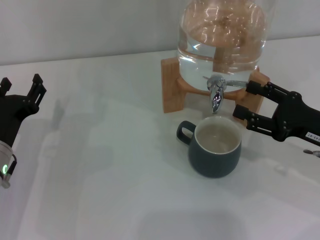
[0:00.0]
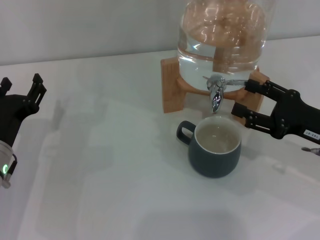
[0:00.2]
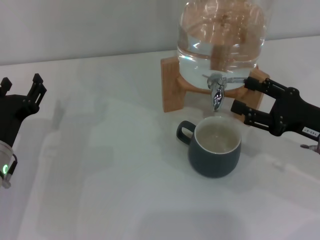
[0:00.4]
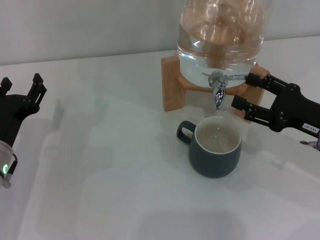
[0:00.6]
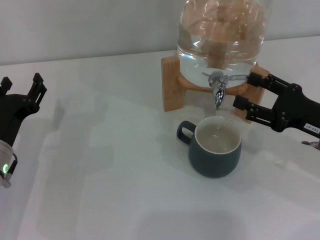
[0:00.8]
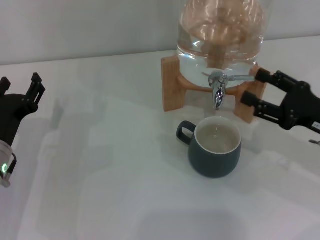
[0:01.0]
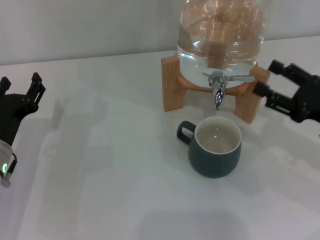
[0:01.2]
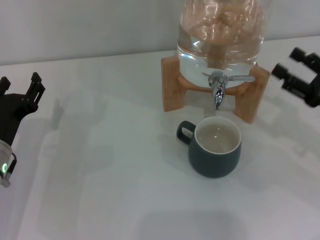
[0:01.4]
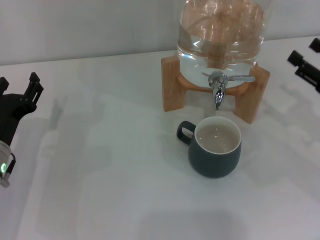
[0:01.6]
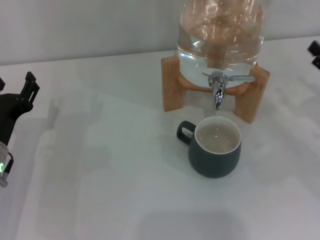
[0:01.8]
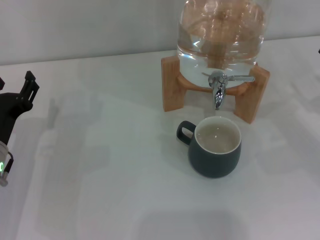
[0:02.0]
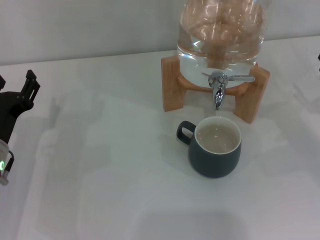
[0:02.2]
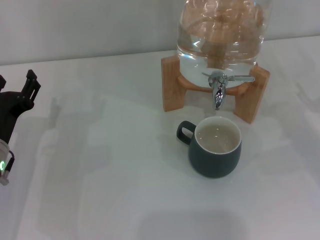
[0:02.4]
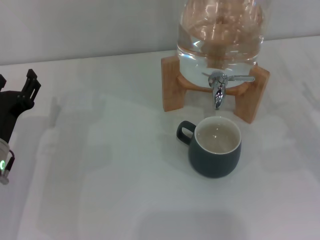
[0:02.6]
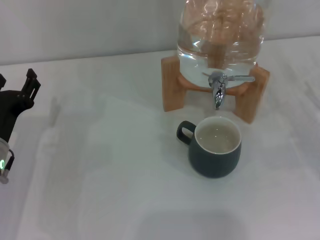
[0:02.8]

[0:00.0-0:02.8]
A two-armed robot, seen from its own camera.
Task of the whole recording: the left gripper pick up the black cup and place it horizontally under the faucet, the right gripper turn on the faucet to fill the cup, and then turn off the faucet.
0:00.0 to 0:01.4: There are only small adjustments of the grippers.
0:01.4 to 0:02.8: The right gripper ends up about 5 cm from where it was.

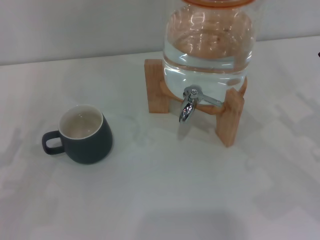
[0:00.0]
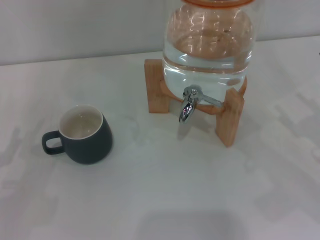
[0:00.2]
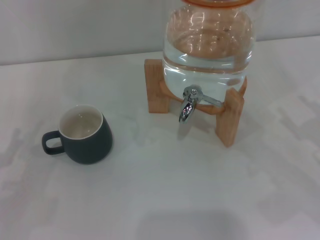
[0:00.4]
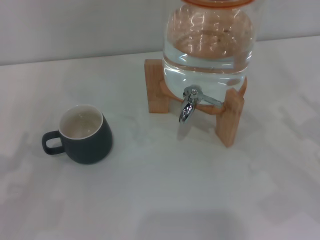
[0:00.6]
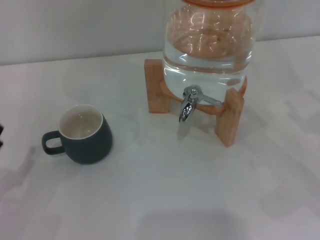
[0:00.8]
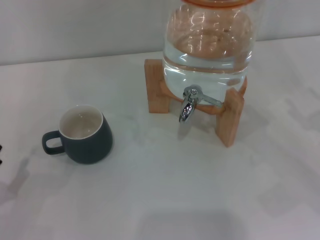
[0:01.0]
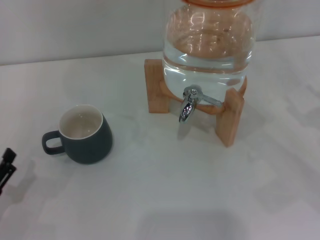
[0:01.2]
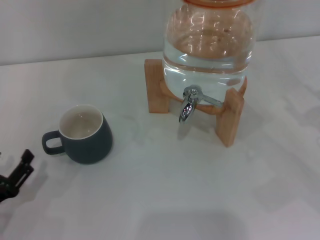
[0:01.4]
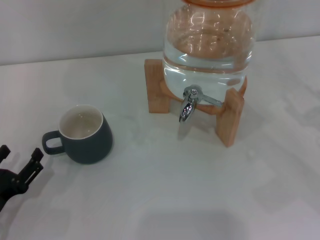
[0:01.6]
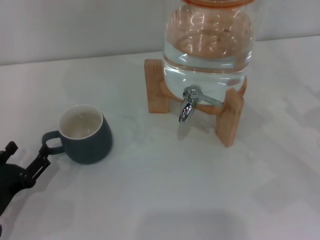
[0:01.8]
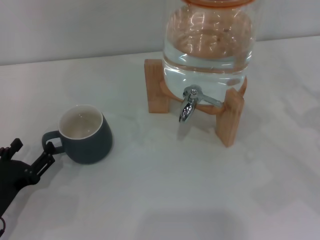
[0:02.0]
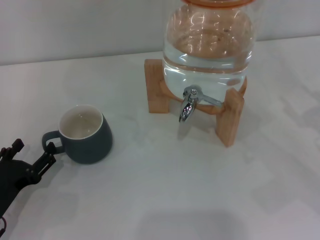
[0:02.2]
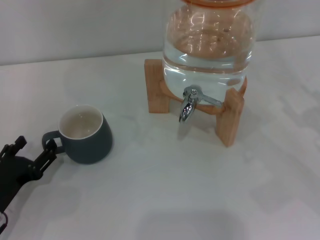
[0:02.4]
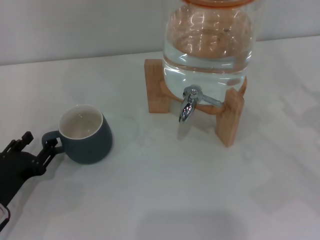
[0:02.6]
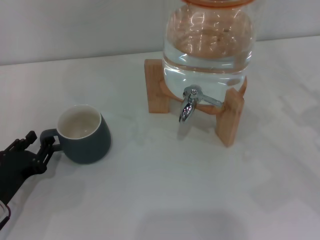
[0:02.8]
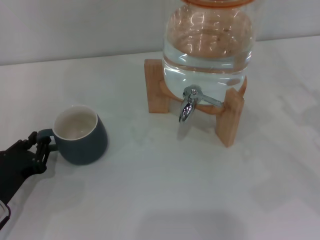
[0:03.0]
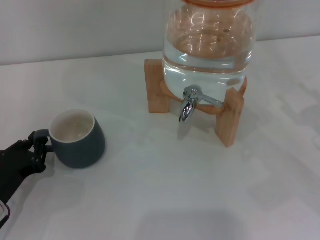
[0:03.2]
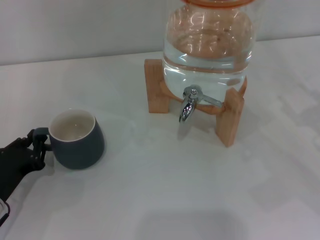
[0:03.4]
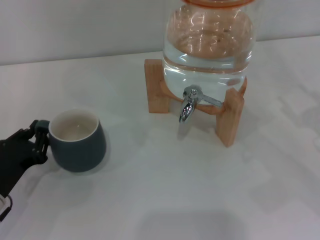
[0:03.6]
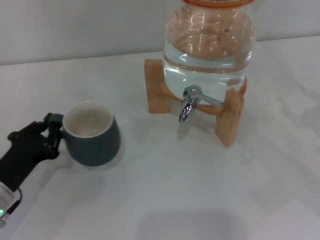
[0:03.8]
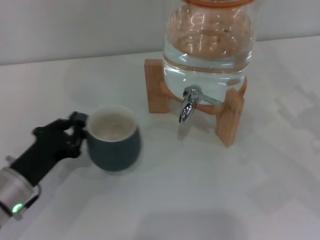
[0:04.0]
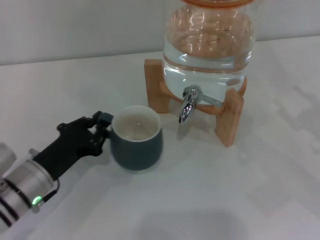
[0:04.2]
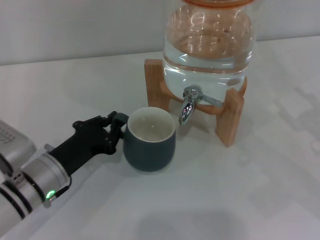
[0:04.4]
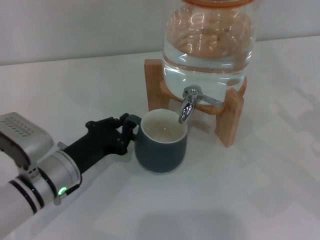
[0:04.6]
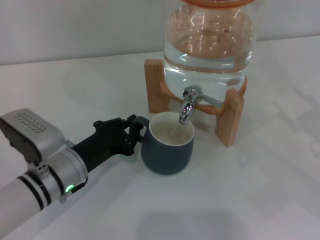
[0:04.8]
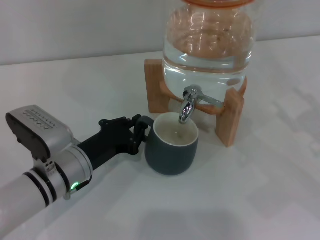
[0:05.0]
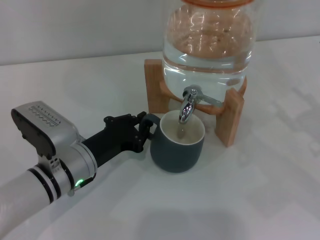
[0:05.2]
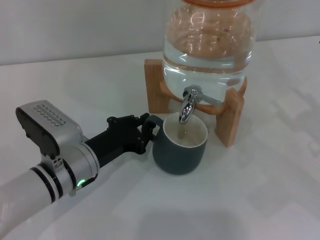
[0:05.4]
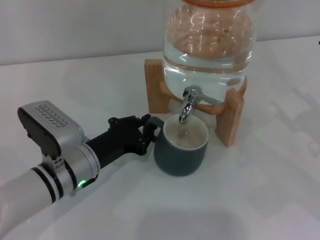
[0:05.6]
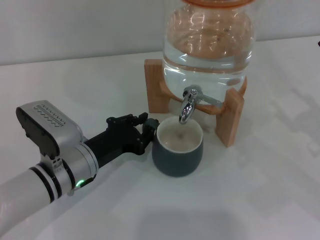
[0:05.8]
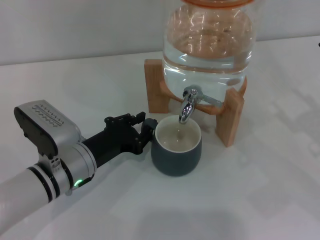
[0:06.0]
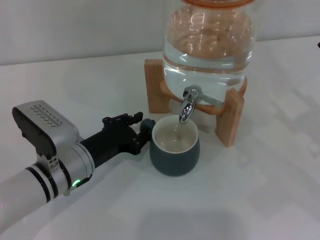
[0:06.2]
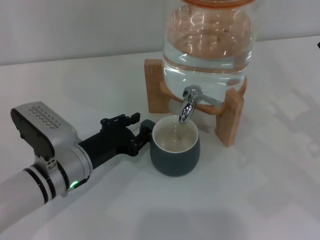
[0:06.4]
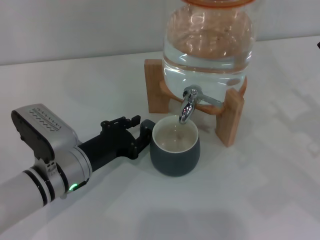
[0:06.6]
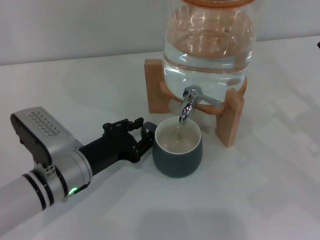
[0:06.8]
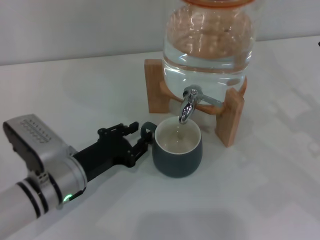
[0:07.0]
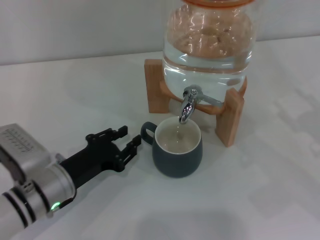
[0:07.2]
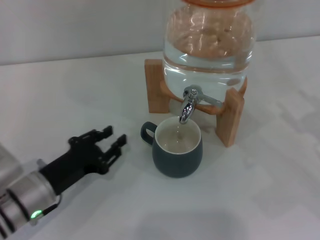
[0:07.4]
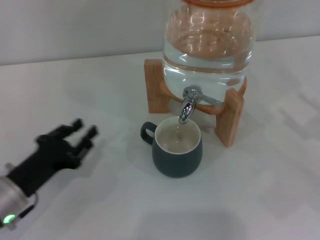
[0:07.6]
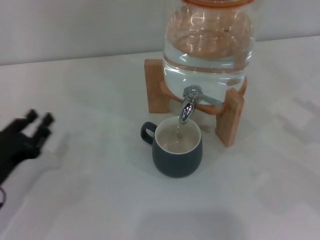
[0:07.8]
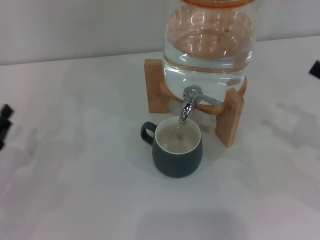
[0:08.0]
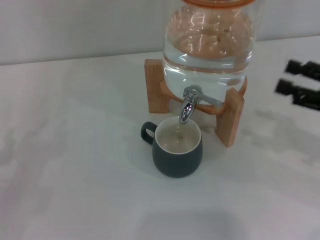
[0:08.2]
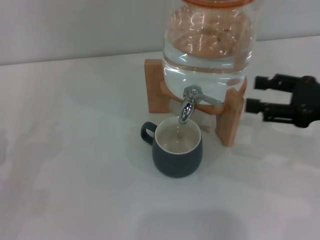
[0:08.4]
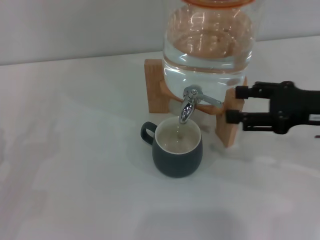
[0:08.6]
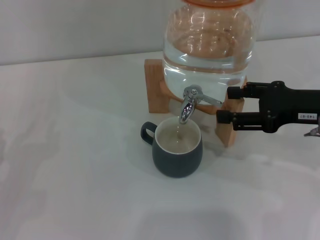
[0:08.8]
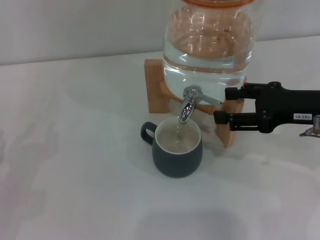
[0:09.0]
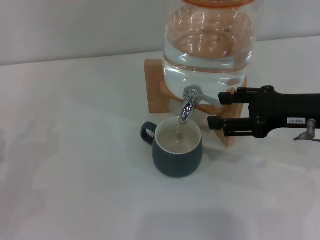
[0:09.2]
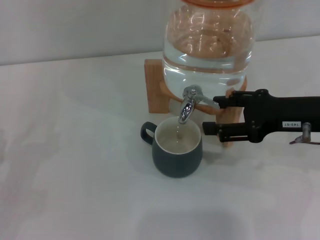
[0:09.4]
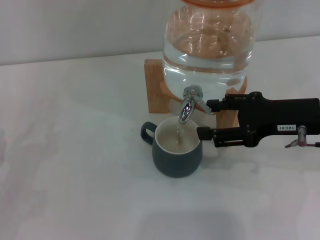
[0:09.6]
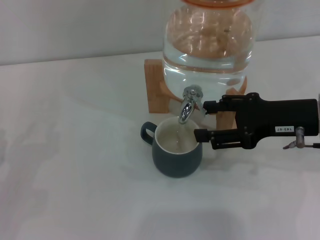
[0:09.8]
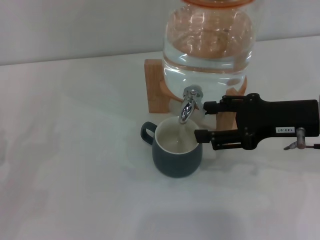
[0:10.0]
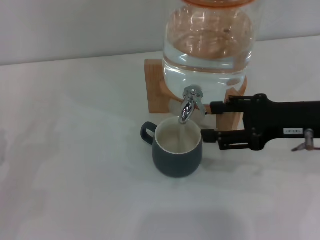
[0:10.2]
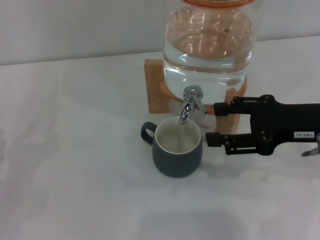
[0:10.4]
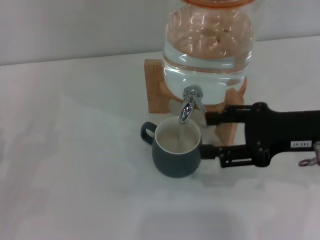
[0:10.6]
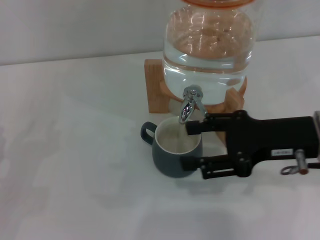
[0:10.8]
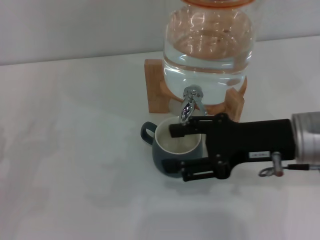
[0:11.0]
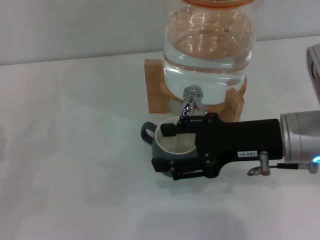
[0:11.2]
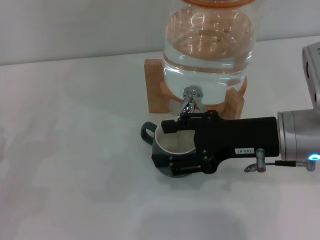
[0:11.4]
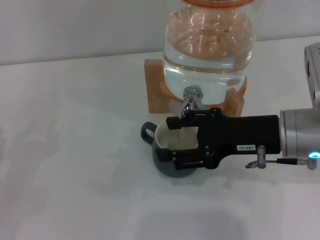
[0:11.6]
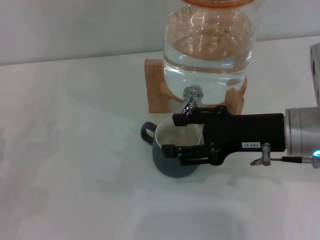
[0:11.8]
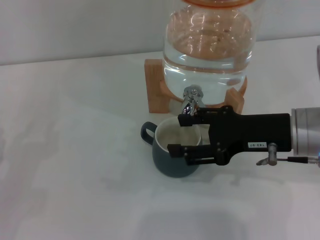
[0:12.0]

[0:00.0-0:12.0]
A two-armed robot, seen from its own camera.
Task of the whole recording: the left gripper pick up the black cup and place it horizontally under the faucet, the right gripper turn on the faucet to fill the cup, and then turn off the faucet.
Step, 0:00.0 to 0:07.0: Move the cup beneath the water dispenser nozzle with the left gripper.
Step, 0:07.4 to 0:10.2: Open the dispenser valve and fill the cup with water with the right gripper.
0:00.0 to 0:01.6: The left gripper ends up approximately 5 cm from where it was.
0:01.6 to 0:03.0: The left gripper closes.
0:03.0 to 0:04.4: The left gripper heads to the right, covering roughly 10 cm.
0:04.4 to 0:06.0: The grippers move only a little.
0:06.0 to 0:07.6: The left gripper goes roughly 10 cm to the left.
0:07.6 to 0:09.0: The left gripper travels to the left by roughly 10 cm, while the right gripper moves to the left, upward and forward, roughly 15 cm.
0:09.0 to 0:10.4: The grippers make only small movements.
0:10.4 to 0:12.0: The right gripper ends up about 5 cm from where it was.

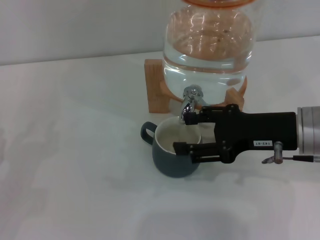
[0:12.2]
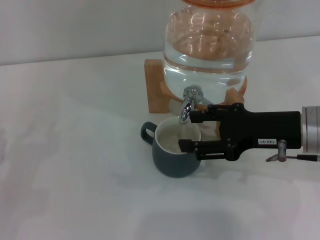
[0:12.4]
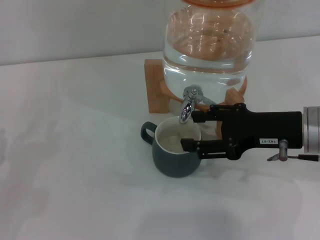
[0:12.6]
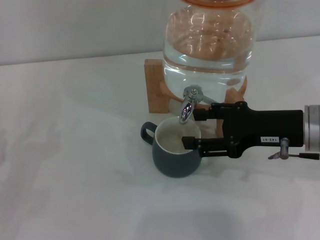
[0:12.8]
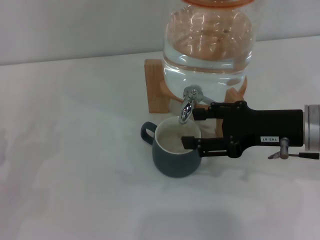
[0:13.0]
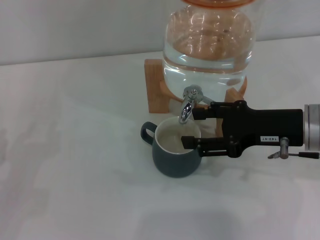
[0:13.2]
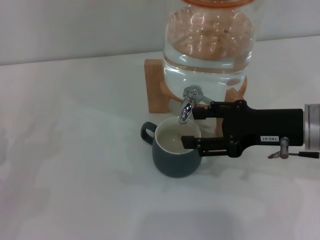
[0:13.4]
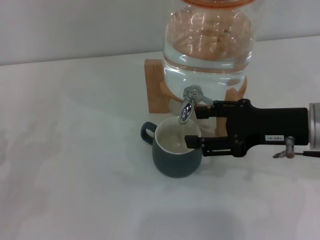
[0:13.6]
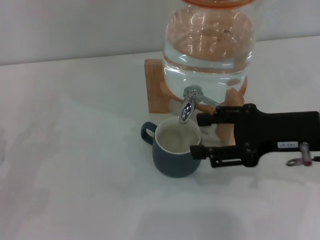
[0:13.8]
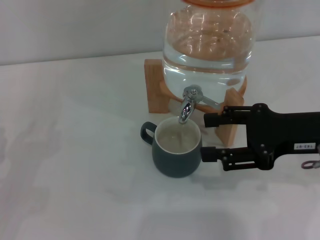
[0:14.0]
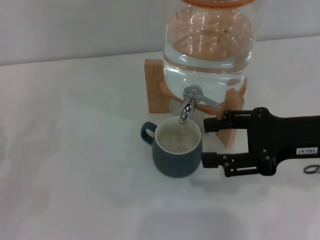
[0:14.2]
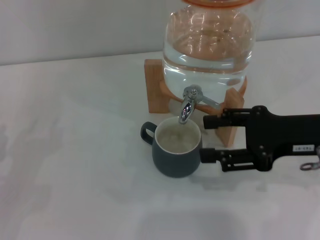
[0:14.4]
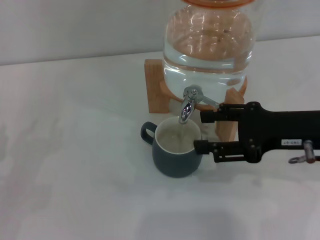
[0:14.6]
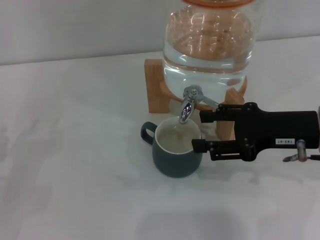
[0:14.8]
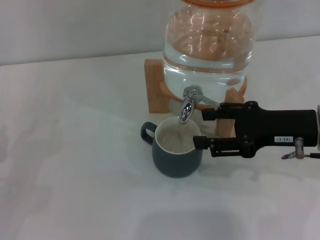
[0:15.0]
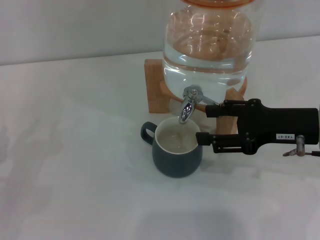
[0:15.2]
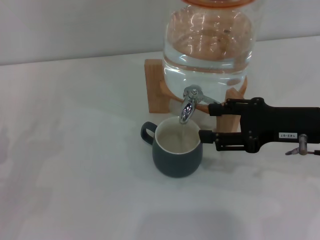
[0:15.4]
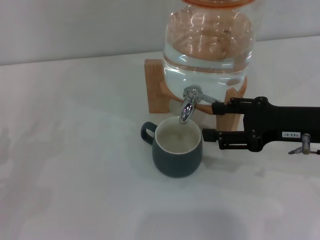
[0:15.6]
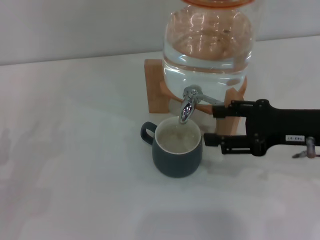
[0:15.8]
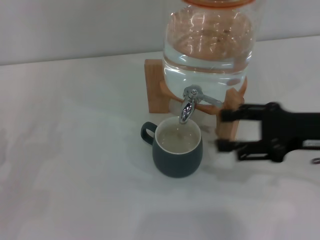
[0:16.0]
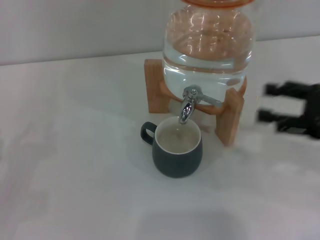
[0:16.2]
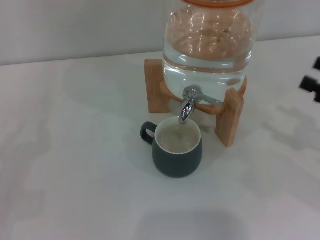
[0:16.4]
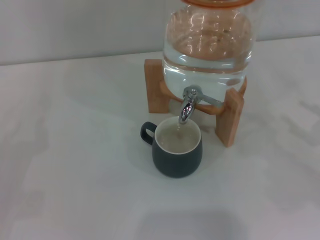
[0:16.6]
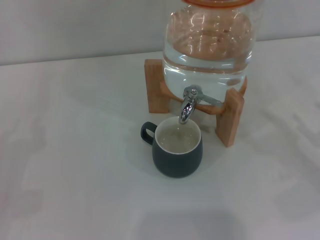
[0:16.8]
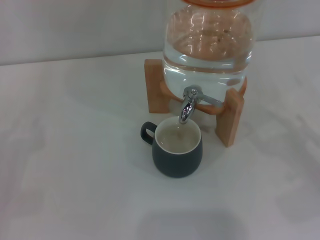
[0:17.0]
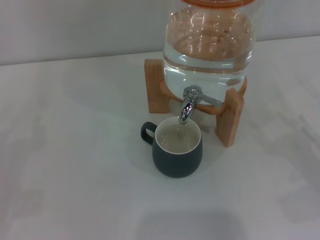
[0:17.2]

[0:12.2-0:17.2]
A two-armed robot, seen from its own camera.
Task of the whole recording: the left gripper pick up the black cup and place it horizontally under the faucet, the right gripper turn on the faucet to fill the cup, and then turn off the faucet.
Step, 0:12.2 to 0:15.8: Close the dispenser valve with the right gripper.
0:12.2 to 0:15.6: There are only small adjustments of the grippers.
0:15.6 to 0:17.2: The right gripper travels to the right, downward and backward by about 15 cm.
